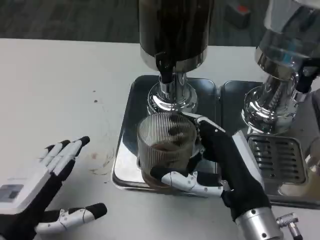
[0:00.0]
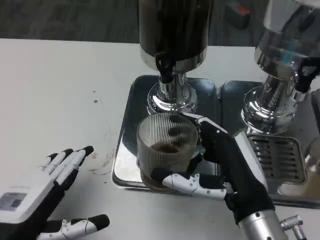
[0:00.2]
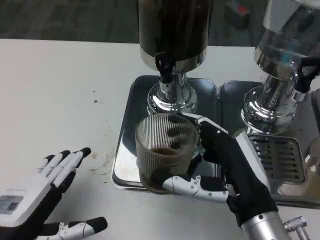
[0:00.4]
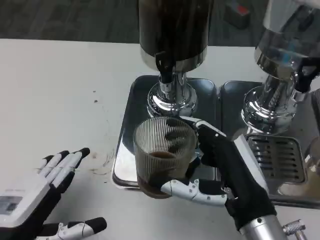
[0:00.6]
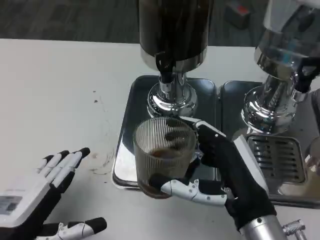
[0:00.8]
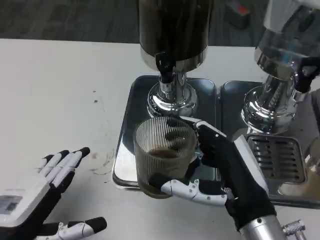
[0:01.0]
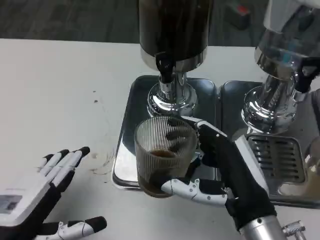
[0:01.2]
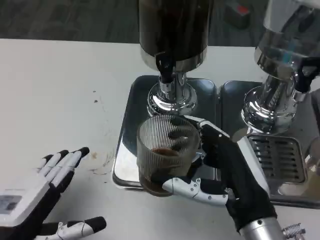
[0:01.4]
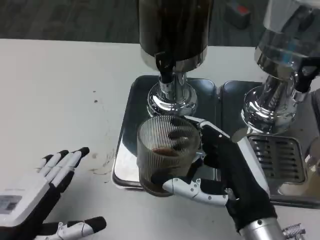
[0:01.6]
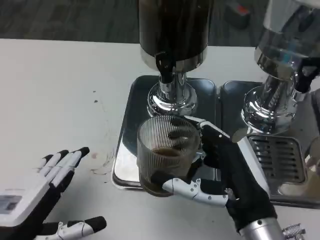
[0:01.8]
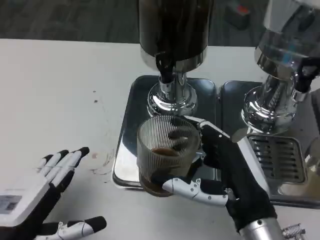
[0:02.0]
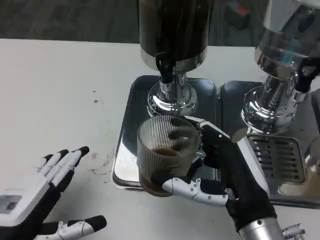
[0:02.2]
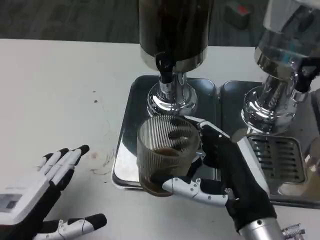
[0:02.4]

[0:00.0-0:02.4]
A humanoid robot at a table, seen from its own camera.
Task of the whole recording: Grasp the cup under the faucet to collect the drink, then remove the cup.
0:00.0 to 0:01.2: The hands move only a little.
0:01.2 to 0:02.4: The two hands keep their place.

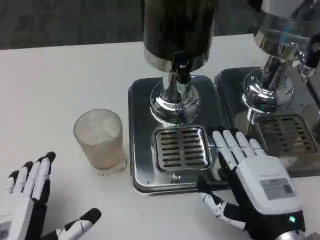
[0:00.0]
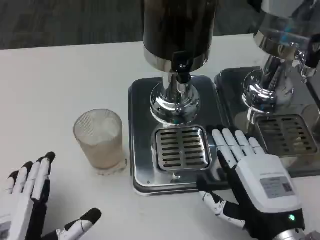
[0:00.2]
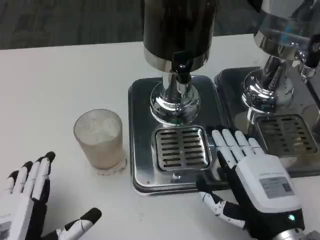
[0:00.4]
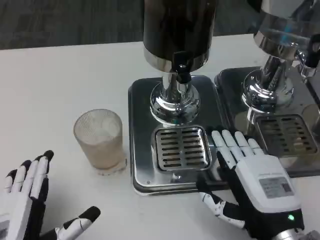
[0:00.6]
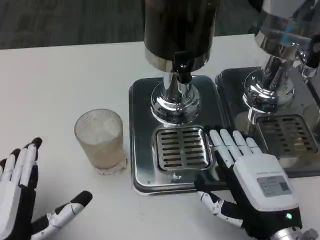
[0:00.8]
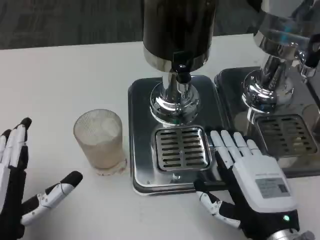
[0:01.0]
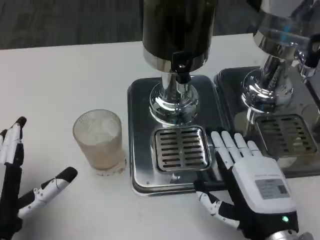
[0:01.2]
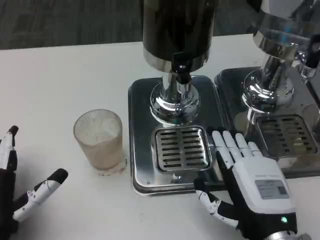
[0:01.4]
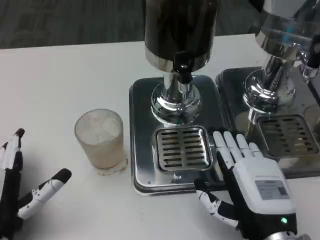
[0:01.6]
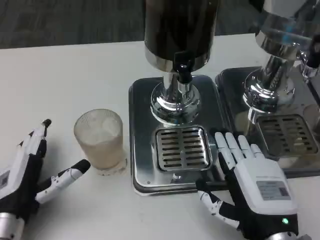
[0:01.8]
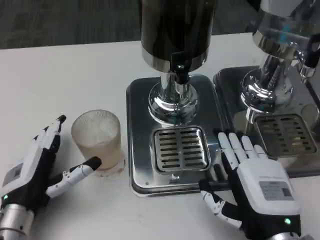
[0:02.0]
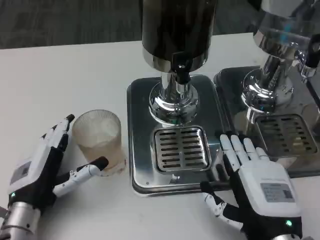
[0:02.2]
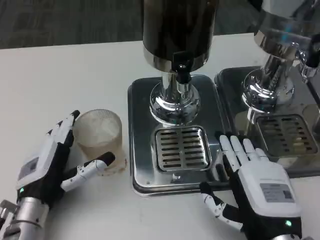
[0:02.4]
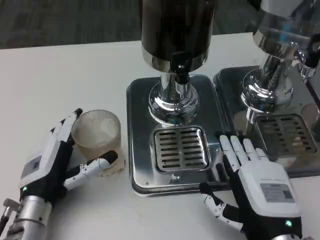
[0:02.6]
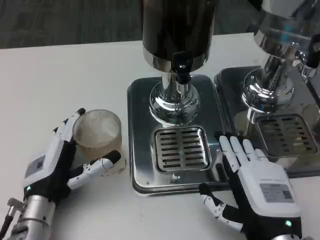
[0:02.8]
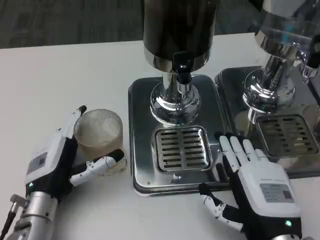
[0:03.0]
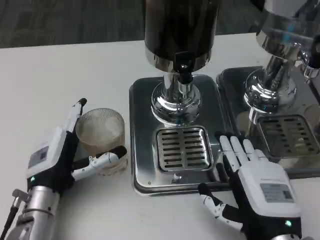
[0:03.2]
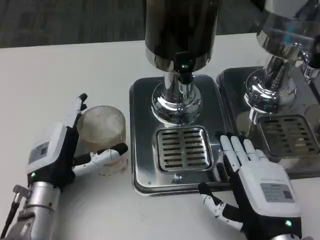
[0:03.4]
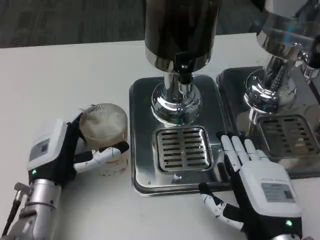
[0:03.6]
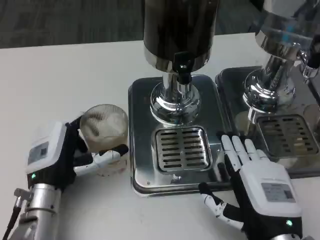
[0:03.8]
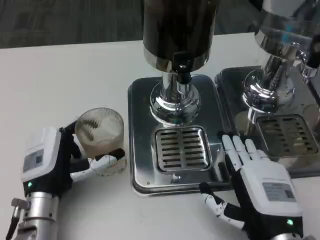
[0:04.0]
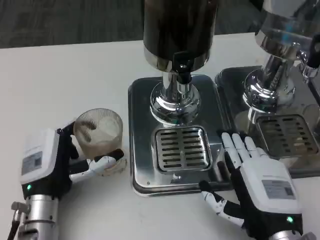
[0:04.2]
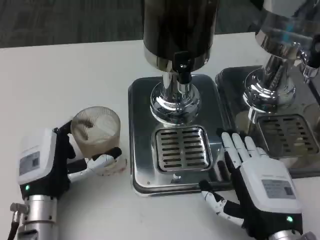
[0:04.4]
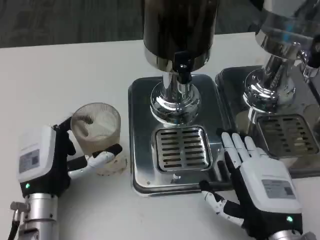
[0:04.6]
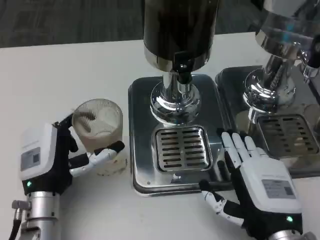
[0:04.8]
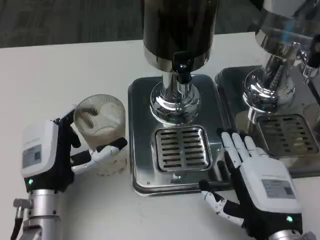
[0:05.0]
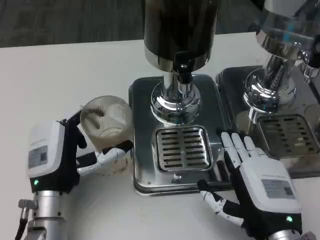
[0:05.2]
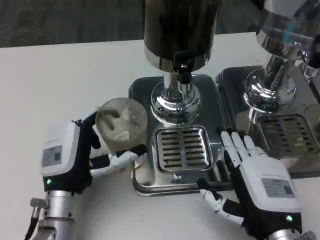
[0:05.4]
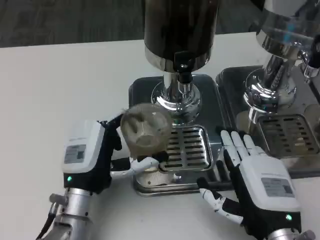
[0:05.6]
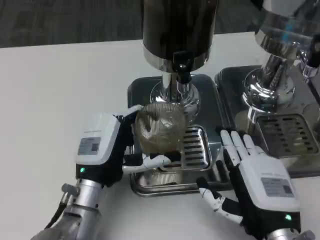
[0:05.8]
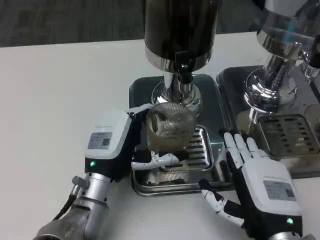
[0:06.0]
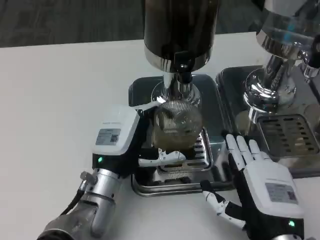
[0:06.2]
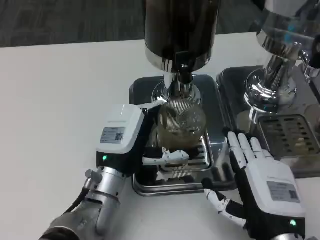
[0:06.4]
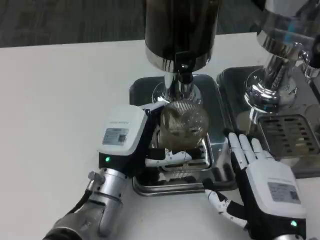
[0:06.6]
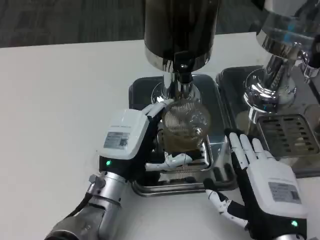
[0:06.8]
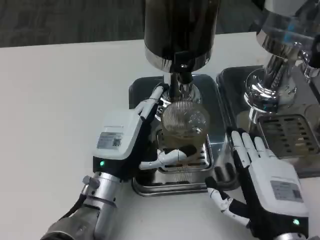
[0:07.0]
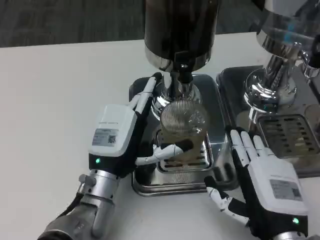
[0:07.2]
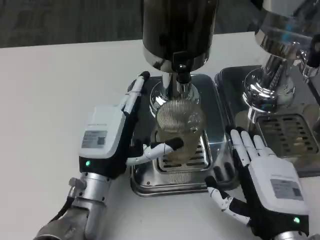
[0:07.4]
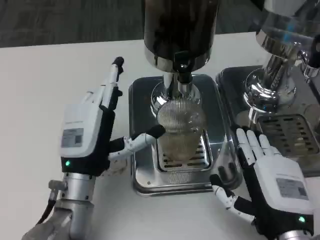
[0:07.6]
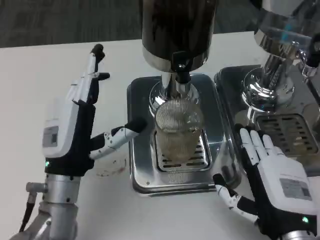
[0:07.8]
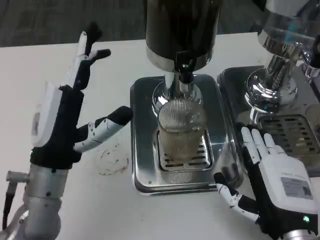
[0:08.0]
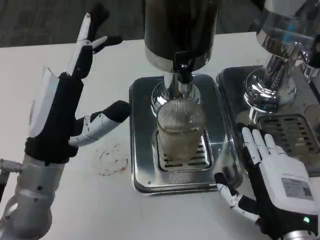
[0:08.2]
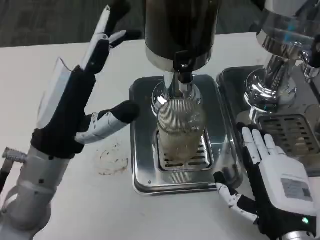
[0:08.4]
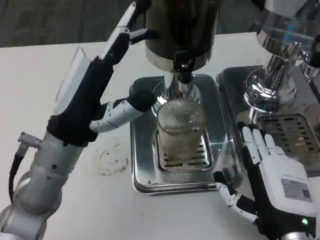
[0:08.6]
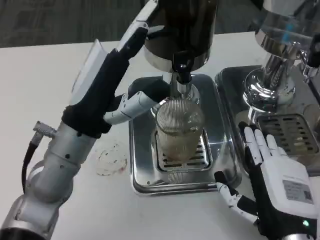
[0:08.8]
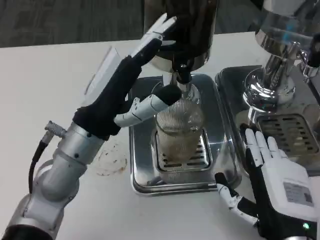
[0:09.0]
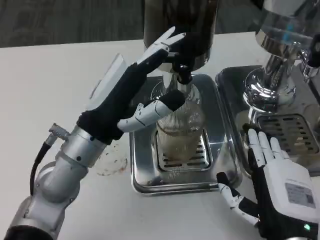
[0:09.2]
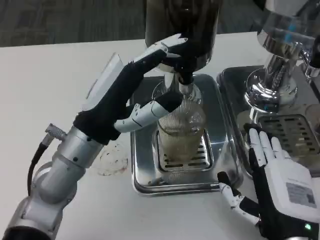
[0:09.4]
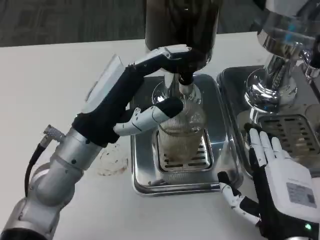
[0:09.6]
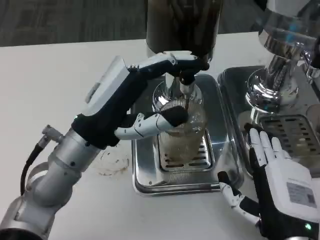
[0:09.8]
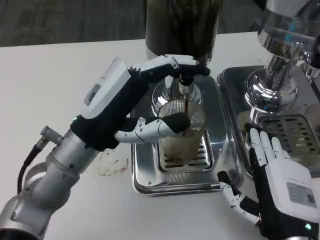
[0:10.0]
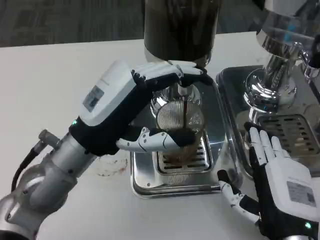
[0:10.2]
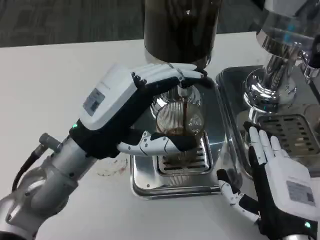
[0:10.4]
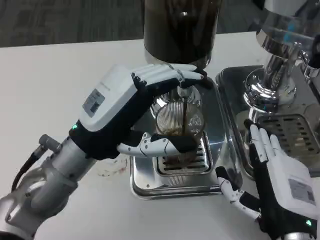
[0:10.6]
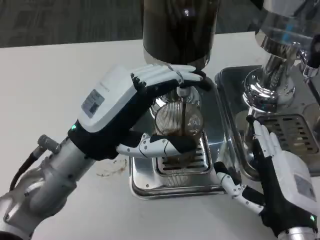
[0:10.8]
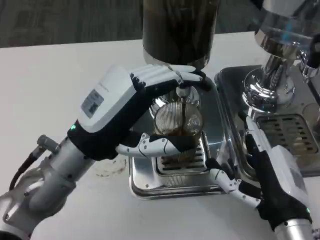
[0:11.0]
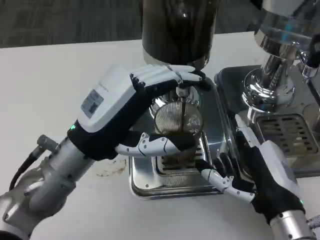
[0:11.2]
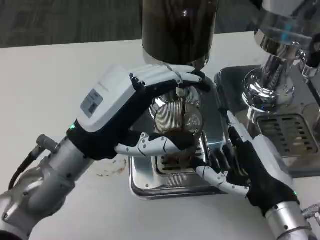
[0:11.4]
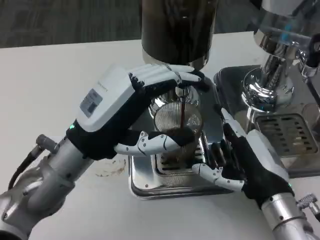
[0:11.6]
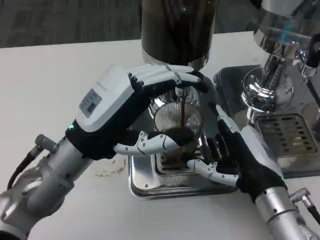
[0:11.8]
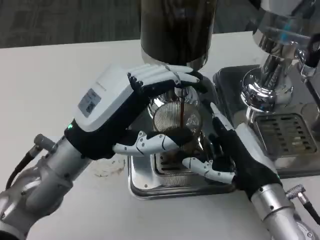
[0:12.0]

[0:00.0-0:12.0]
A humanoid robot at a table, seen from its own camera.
Task of the whole recording: Grasp the cup under the faucet to collect the drink, then remove the cup.
0:00.0 to 0:01.6: The left hand shifts approximately 5 cm forward.
0:01.6 to 0:03.0: The left hand is displaced forward by some 5 cm.
0:03.0 to 0:04.4: The hands move only a little.
0:04.4 to 0:06.0: The left hand travels to the right by about 5 cm.
0:07.6 to 0:09.0: The left hand heads upward, covering roughly 10 cm.
0:10.4 to 0:12.0: The right hand is displaced forward by roughly 5 cm.

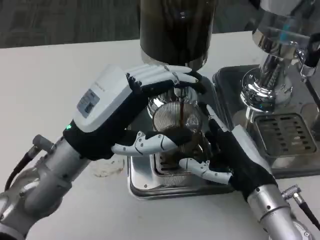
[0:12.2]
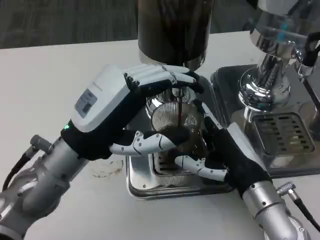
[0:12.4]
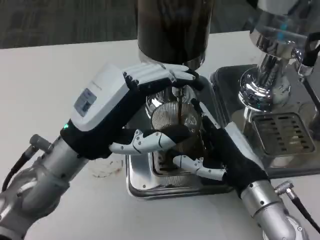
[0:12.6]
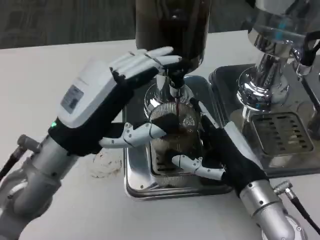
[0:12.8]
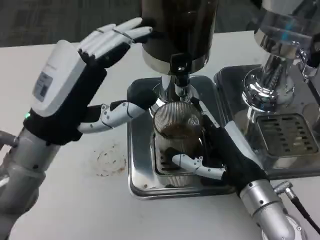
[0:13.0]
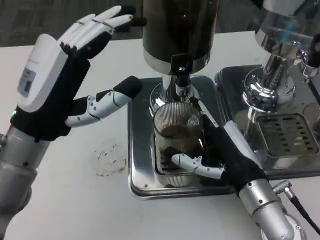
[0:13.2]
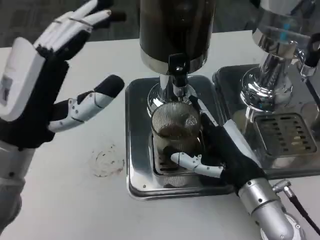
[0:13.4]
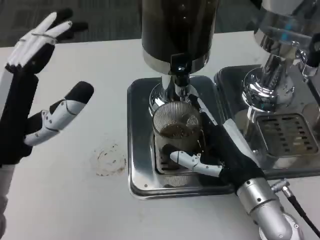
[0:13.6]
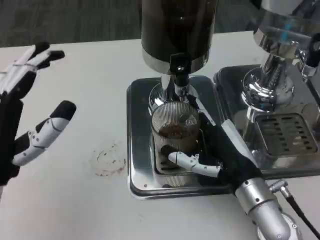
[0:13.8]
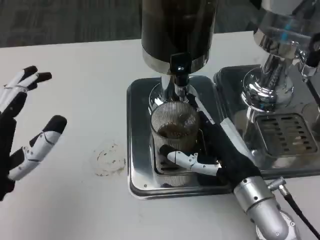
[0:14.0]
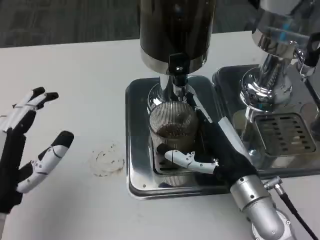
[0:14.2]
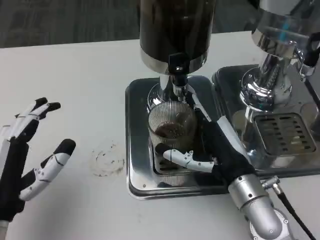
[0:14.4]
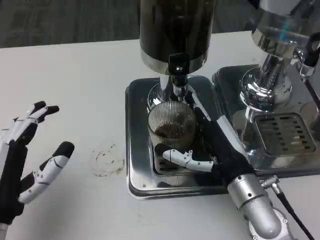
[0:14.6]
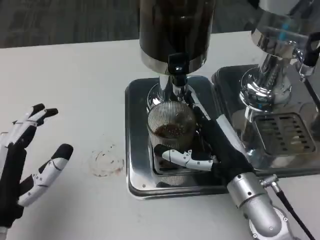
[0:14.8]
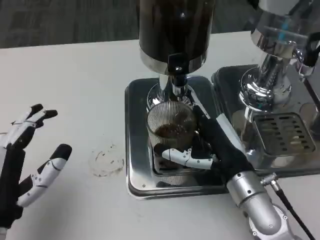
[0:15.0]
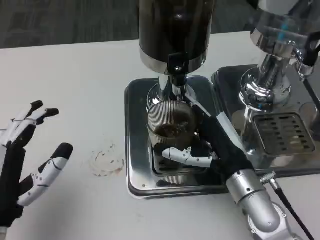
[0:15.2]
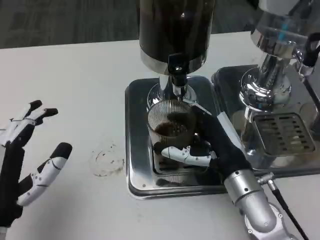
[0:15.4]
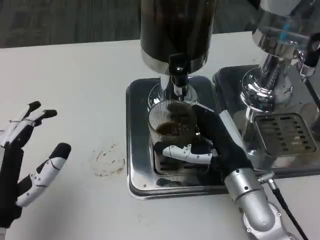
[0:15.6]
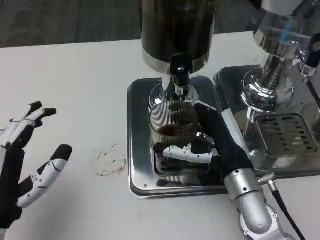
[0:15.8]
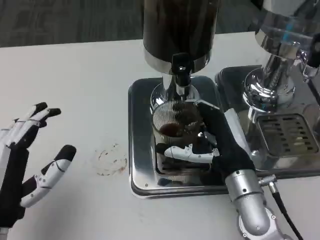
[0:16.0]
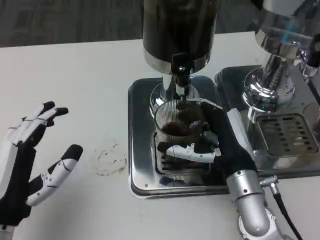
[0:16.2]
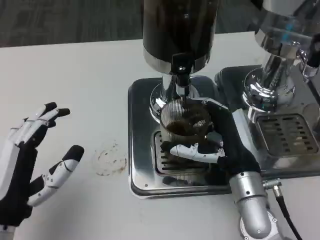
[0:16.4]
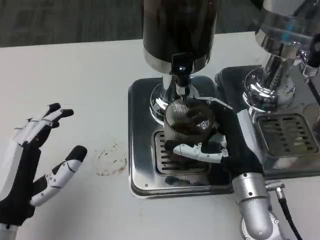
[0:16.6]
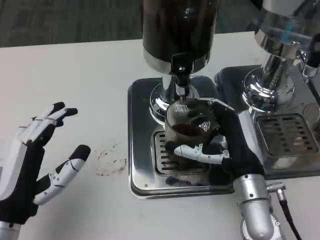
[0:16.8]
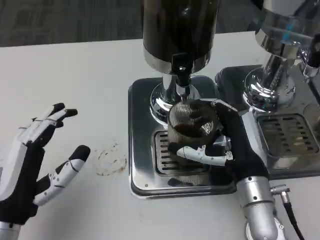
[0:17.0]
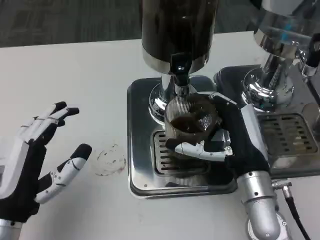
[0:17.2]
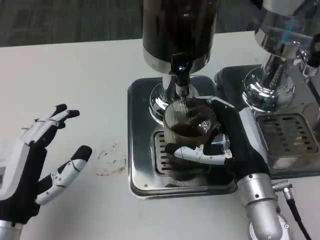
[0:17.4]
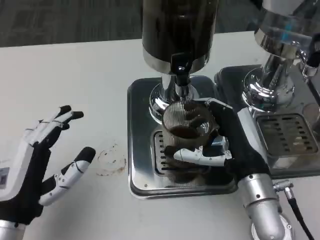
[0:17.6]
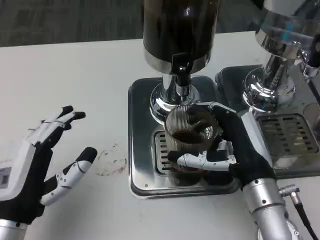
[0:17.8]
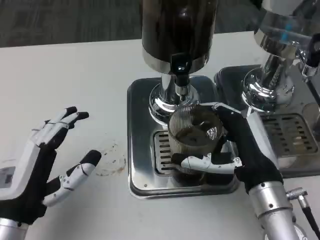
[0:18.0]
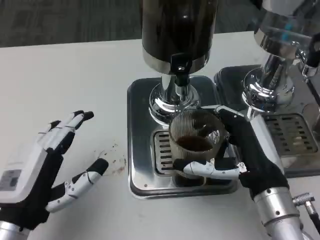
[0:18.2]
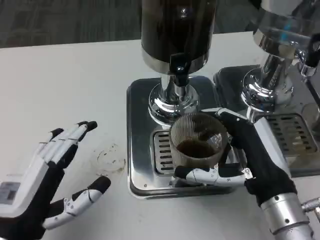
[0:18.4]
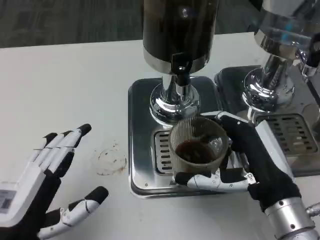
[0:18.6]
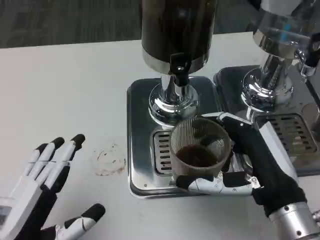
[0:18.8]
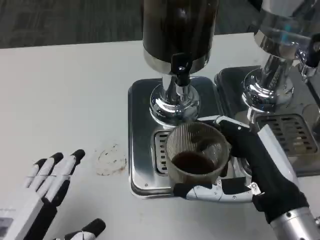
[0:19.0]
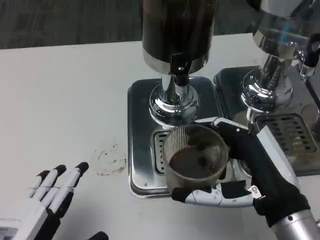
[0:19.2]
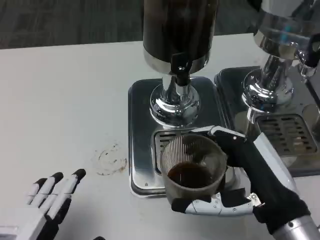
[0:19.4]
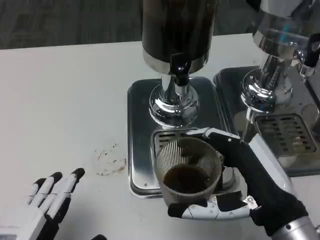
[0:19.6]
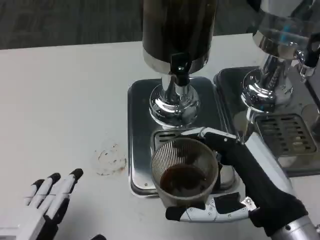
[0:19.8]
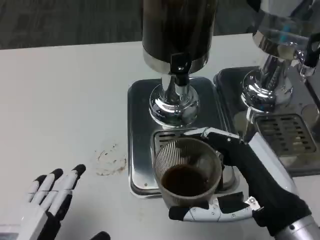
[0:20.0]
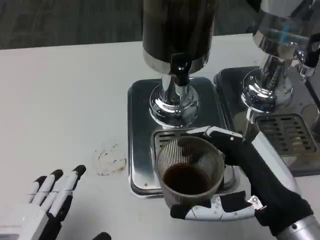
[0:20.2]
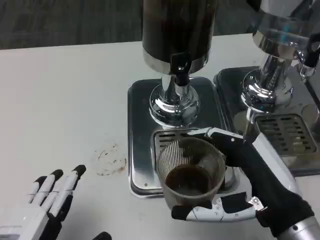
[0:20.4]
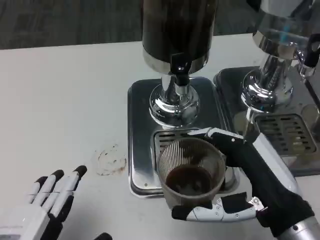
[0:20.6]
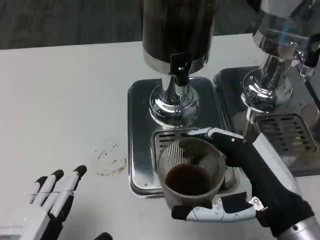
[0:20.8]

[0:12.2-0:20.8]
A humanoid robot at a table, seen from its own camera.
Task of the whole recording: Grasp the cup under the faucet to collect the drink, then remove the cup.
0:12.2 to 0:13.6: The left hand goes roughly 5 cm to the left.
0:13.6 to 0:15.0: The left hand is displaced downward and backward by about 10 cm.
0:18.0 to 0:19.4: Both hands travel together backward, some 10 cm.
0:19.4 to 0:20.8: The hands move only a little.
